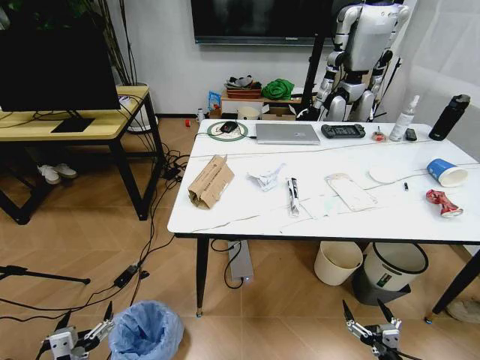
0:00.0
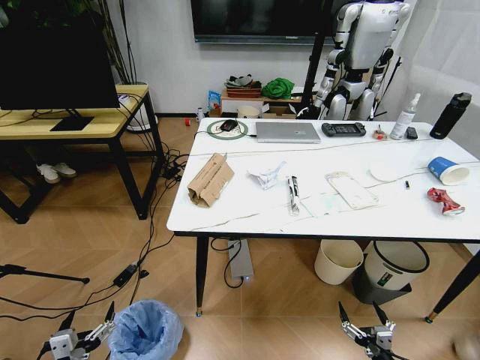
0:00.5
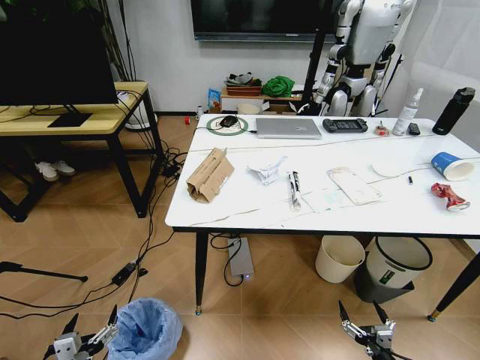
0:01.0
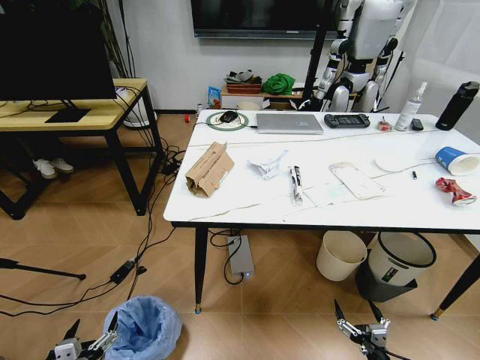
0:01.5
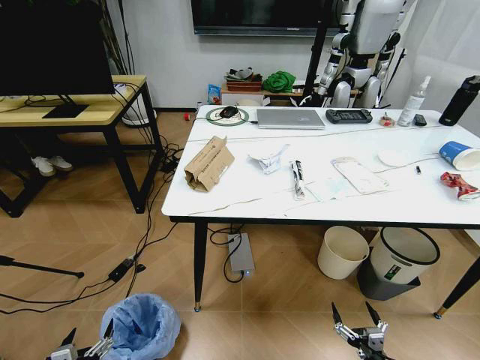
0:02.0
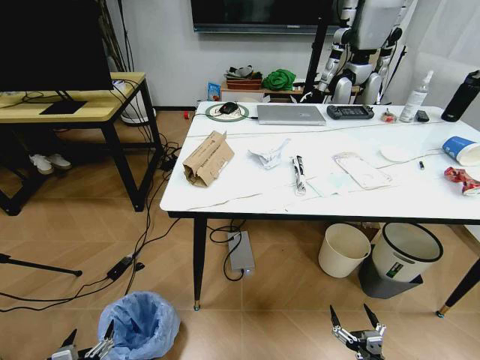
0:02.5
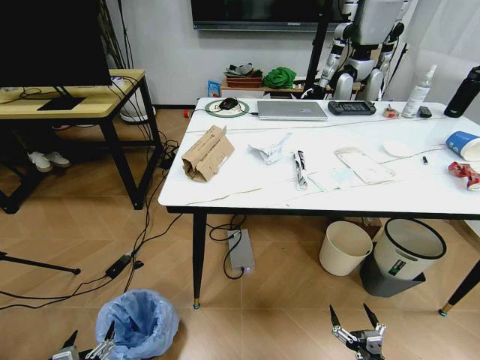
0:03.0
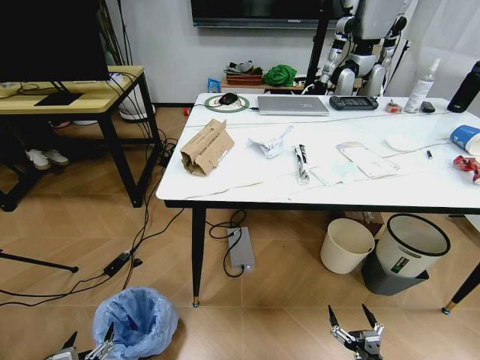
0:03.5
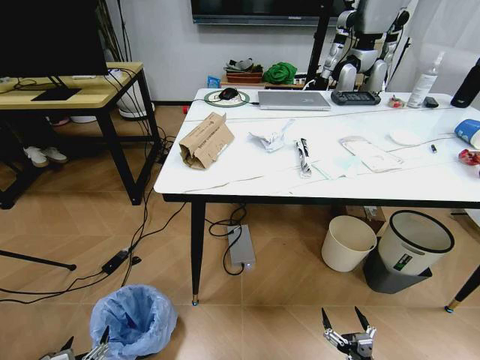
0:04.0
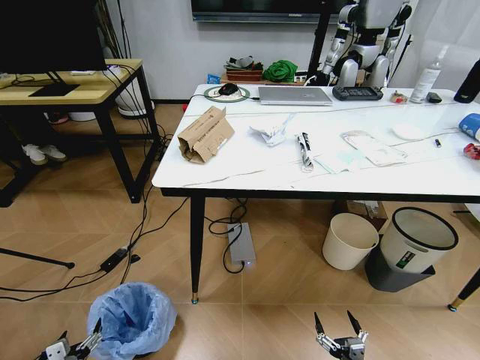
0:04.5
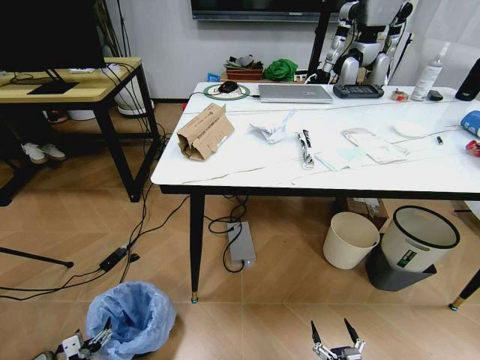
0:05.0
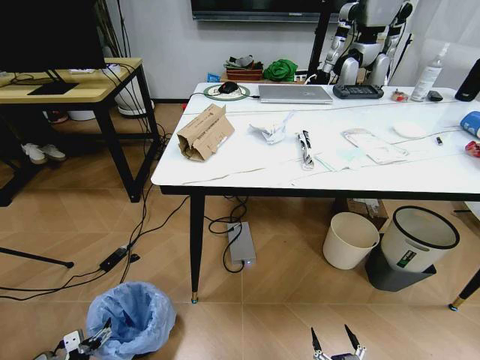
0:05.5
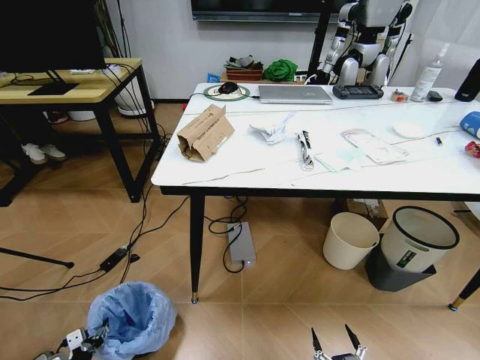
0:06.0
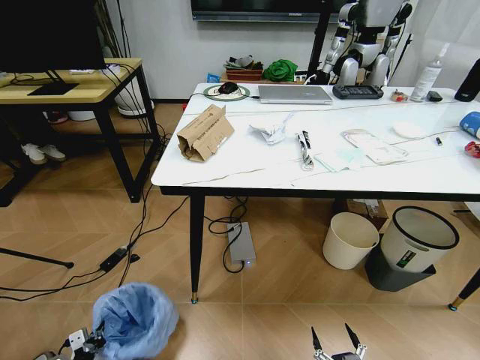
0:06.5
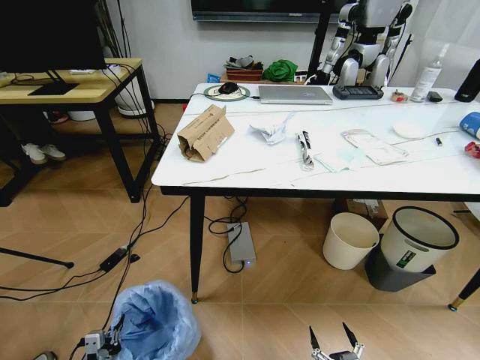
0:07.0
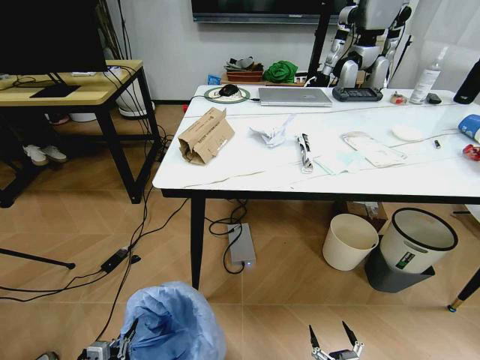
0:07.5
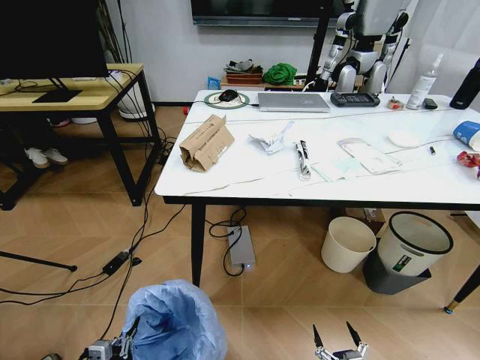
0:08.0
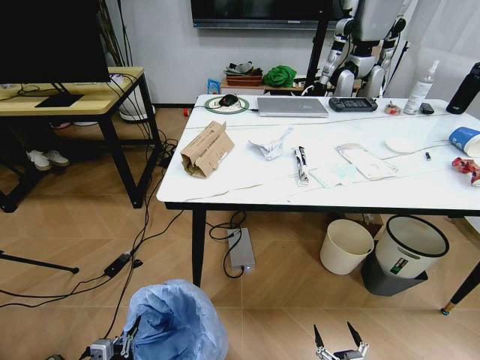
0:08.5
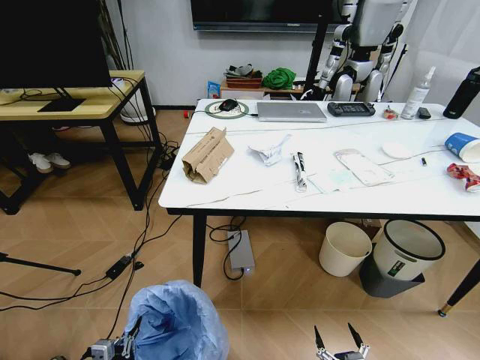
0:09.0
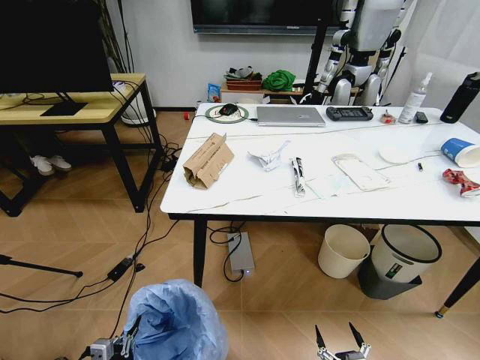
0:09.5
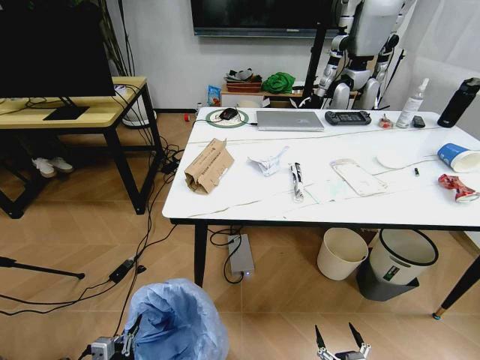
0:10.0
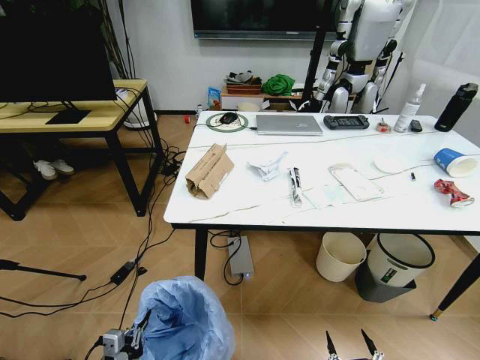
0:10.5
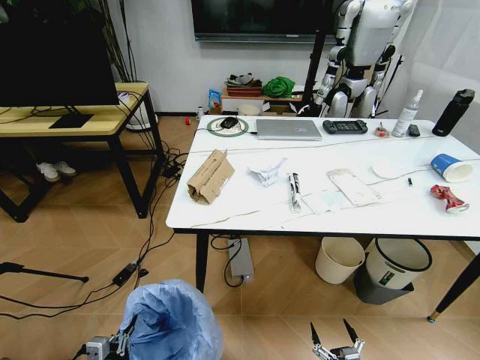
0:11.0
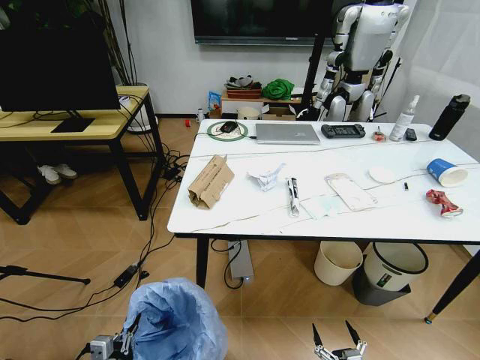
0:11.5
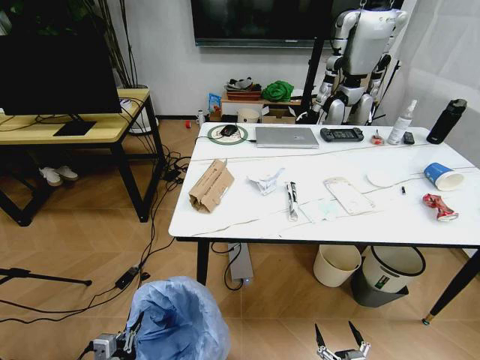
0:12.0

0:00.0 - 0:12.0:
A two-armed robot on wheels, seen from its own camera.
Task of the whole recording: Pick up the trash bin and place the trash from the table into it.
0:02.0 - 0:04.0: The left gripper changes place by roughly 5 cm.
0:04.0 - 0:06.0: The left gripper travels forward and downward by roughly 10 cm, and closes; the right gripper changes place by some 5 cm.
0:06.0 - 0:08.0: The left gripper goes about 20 cm upward, to the right and backward, and closes its fingers.

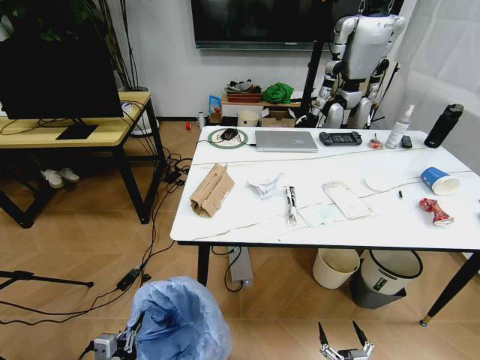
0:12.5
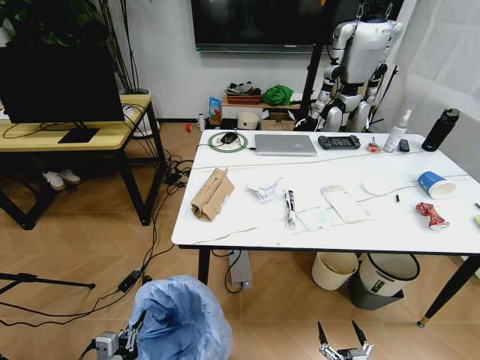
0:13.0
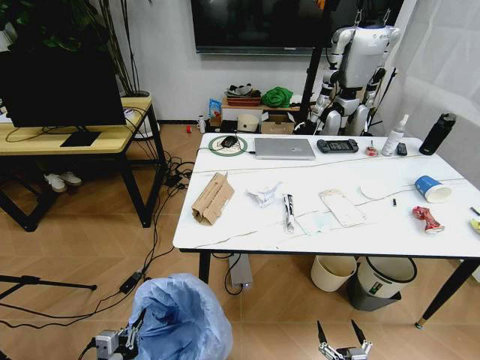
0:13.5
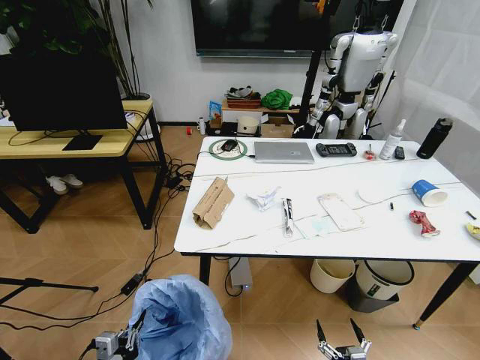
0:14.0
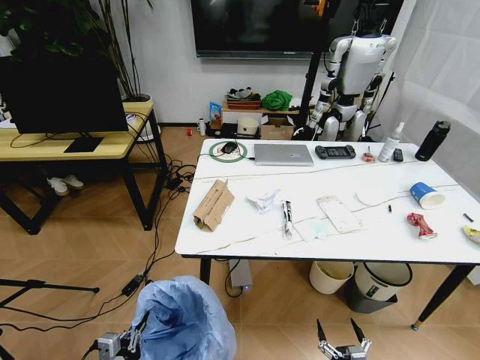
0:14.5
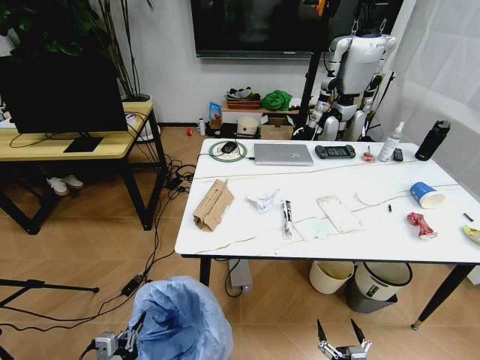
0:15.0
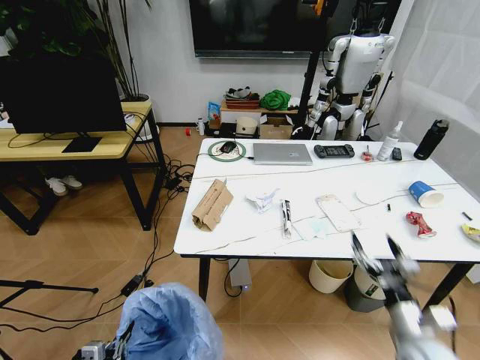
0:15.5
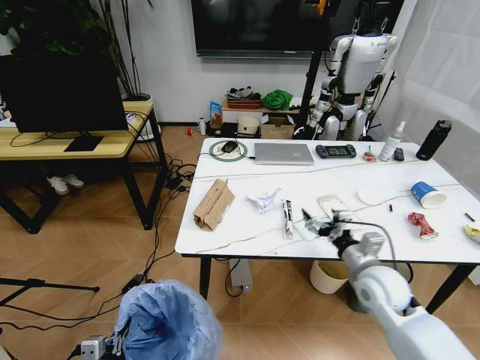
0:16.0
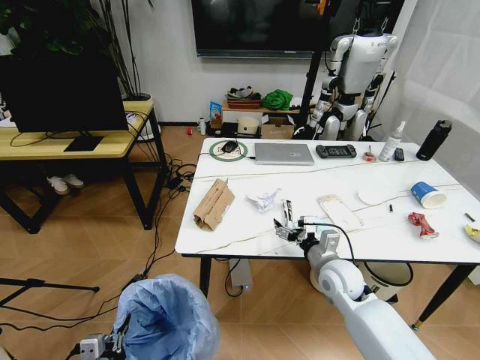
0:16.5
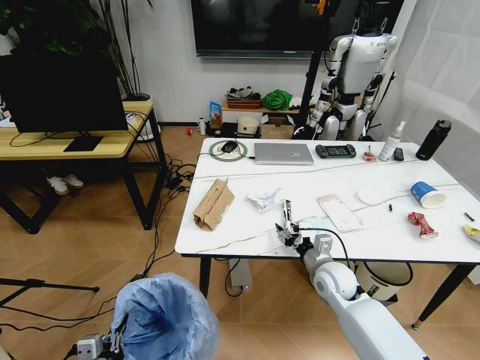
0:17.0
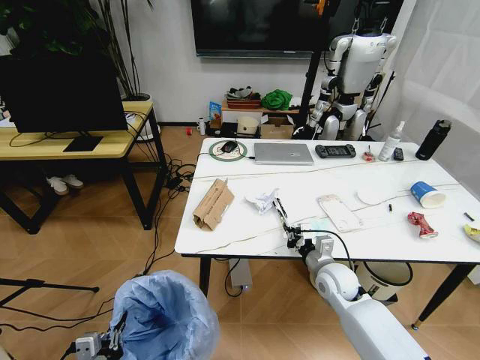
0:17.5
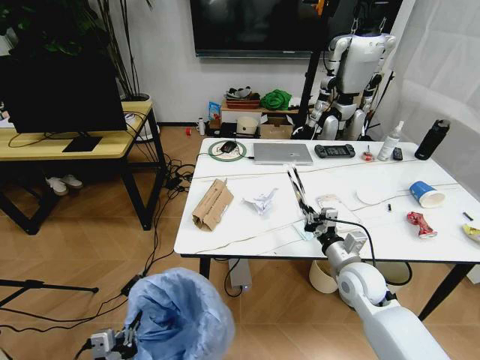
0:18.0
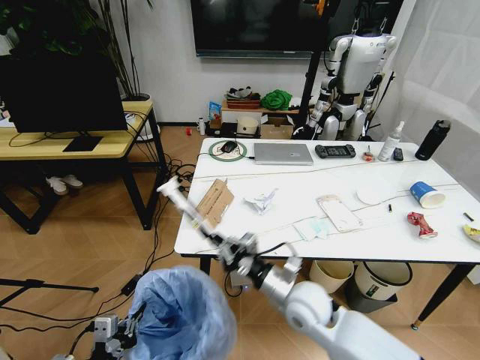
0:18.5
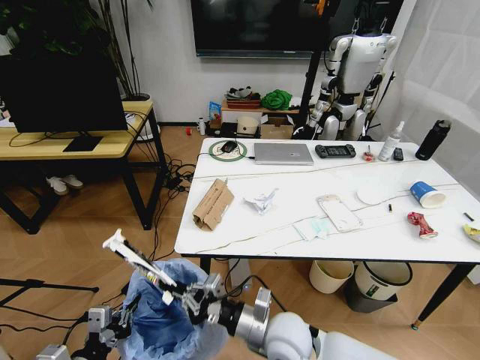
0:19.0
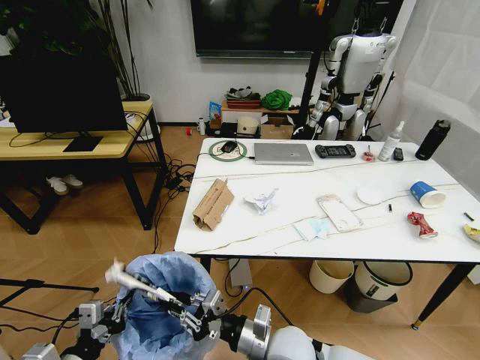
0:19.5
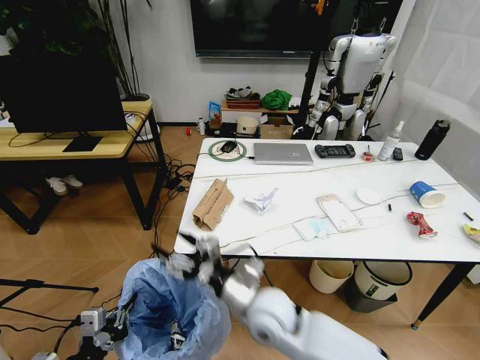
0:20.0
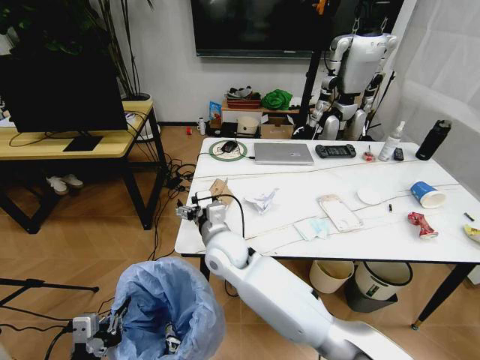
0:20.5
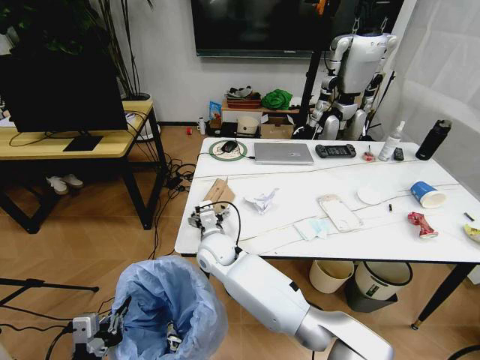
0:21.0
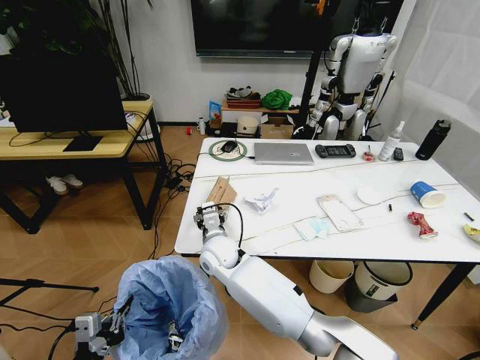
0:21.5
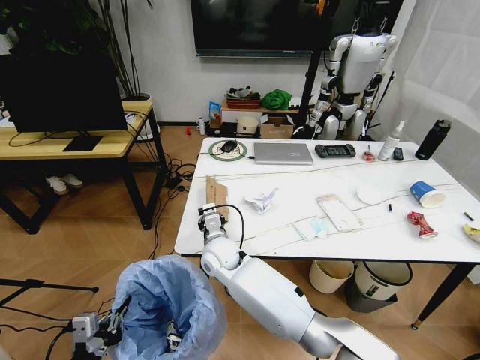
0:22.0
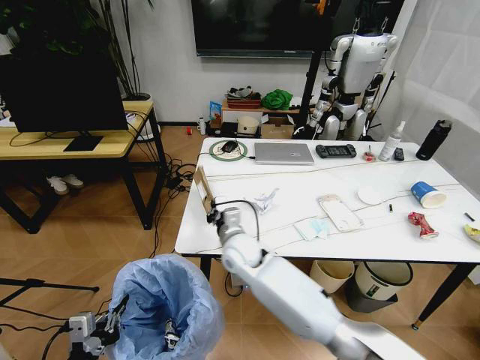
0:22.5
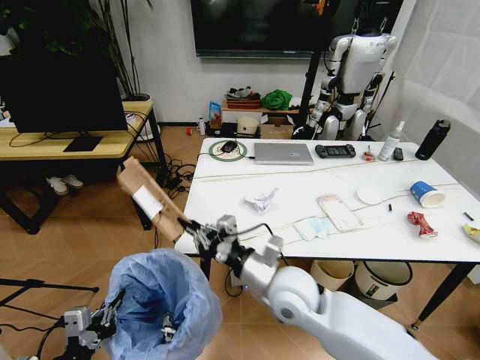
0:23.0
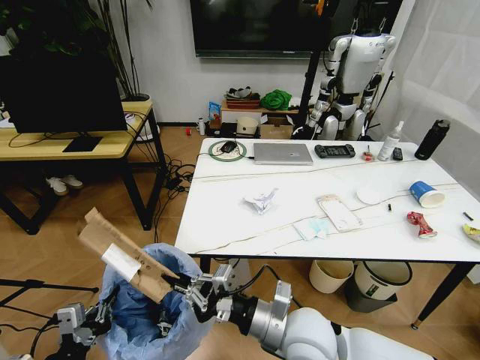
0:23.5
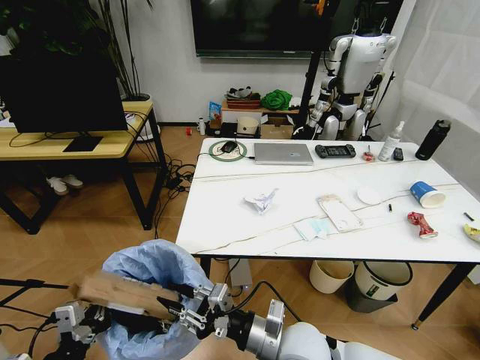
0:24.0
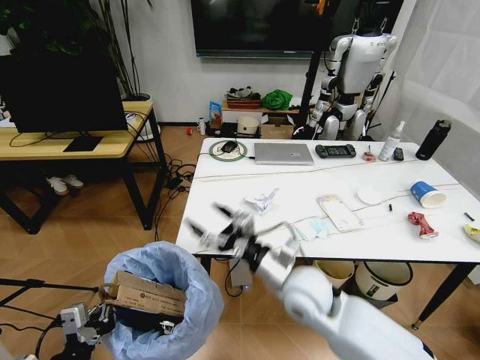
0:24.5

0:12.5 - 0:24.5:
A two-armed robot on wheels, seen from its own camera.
Task of the whole recording: Pick up the trash bin and place the trash from the table into it.
0:14.5 - 0:16.5: The right gripper shifts roughly 35 cm forward and upward.
0:16.5 - 0:18.5: The right gripper goes approximately 10 cm to the left and backward, and closes. Meanwhile the left gripper ends up roughly 5 cm from where it was.
0:18.5 - 0:20.5: The right gripper is displaced to the left and forward by about 20 cm, and opens its fingers.
0:20.5 - 0:22.5: The right gripper heads to the right, covering approximately 5 cm, and closes.
0:22.5 - 0:24.5: The right gripper moves to the right and backward, some 15 cm, and opens.

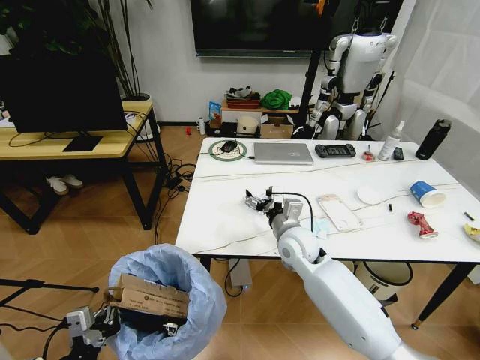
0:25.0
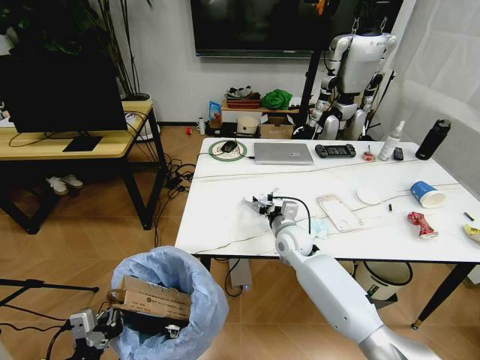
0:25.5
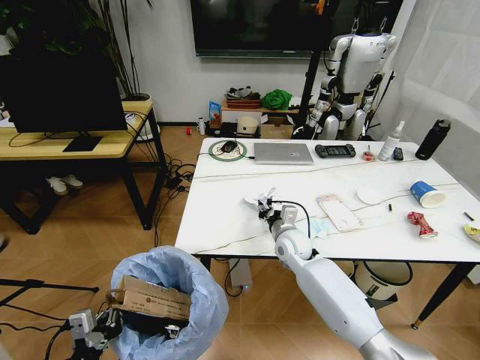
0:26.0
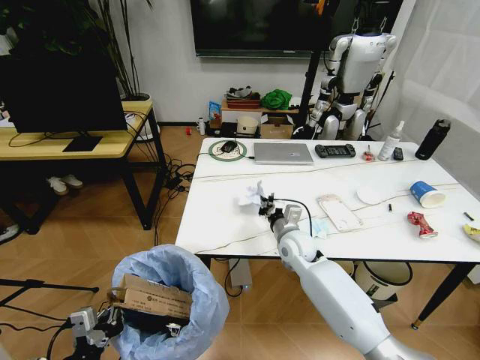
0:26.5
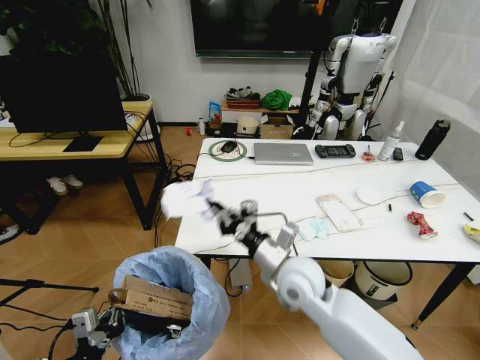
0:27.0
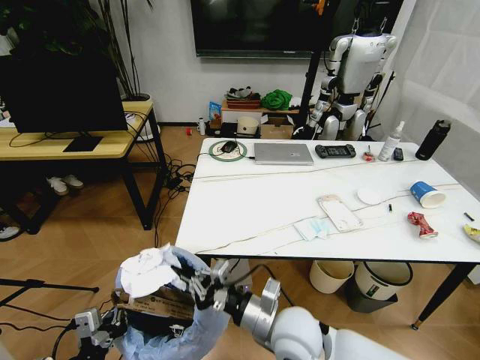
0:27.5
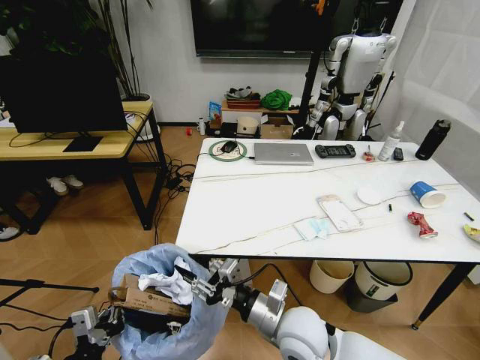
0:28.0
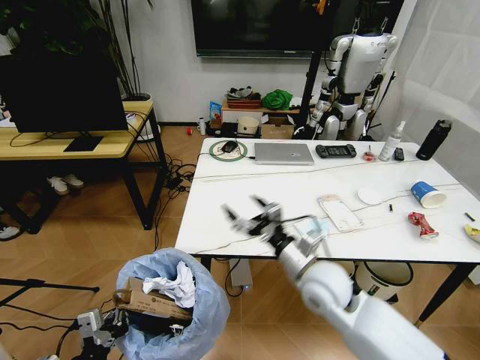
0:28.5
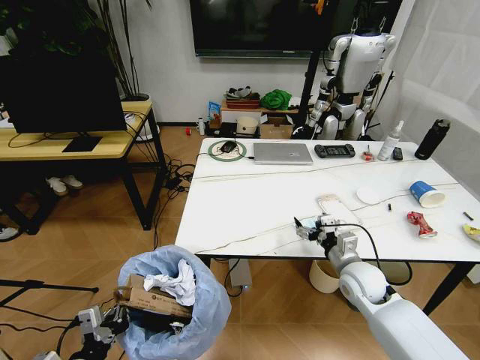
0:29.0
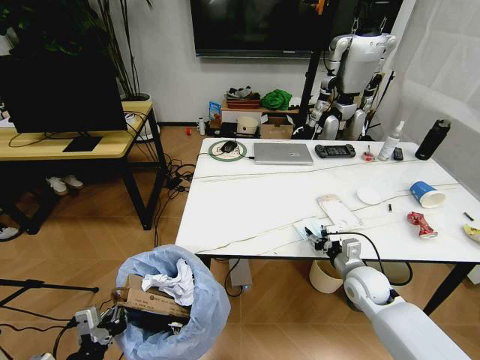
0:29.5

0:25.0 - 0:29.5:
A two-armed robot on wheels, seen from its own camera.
Task of the whole recording: Pick up the trash bin and place the trash from the table into it.
0:25.0 - 0:27.0: The right gripper moves backward, roughly 10 cm, and closes.
0:27.0 - 0:29.5: The right gripper travels to the right and downward by about 25 cm, and opens up.
